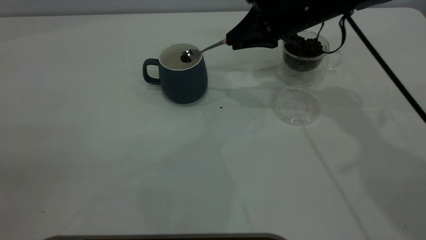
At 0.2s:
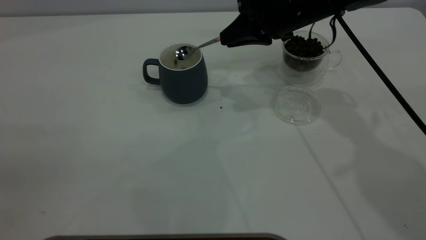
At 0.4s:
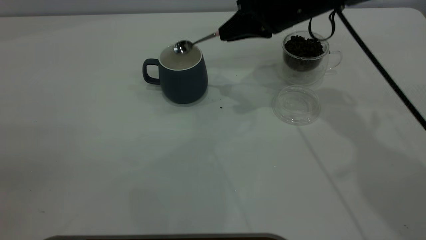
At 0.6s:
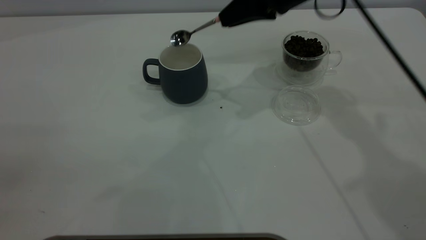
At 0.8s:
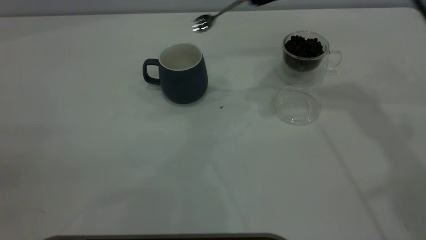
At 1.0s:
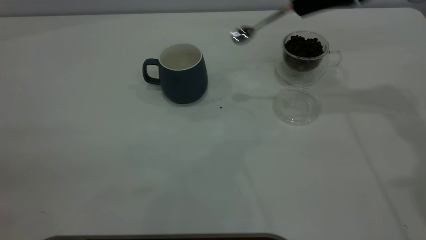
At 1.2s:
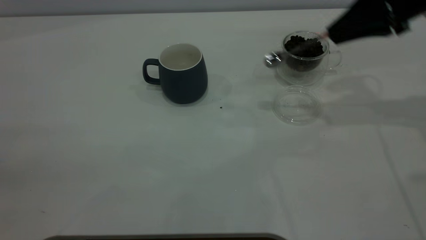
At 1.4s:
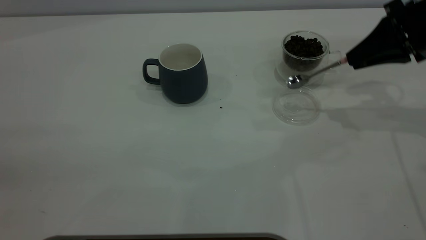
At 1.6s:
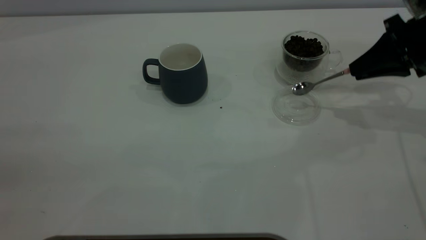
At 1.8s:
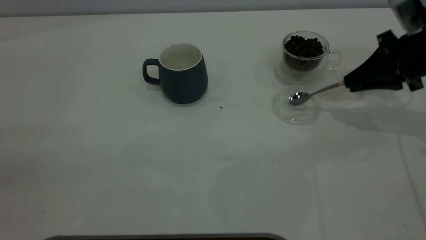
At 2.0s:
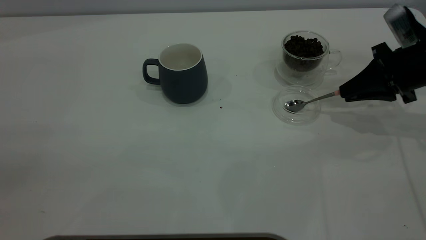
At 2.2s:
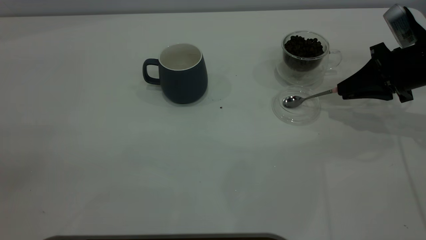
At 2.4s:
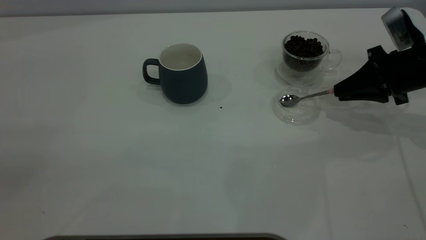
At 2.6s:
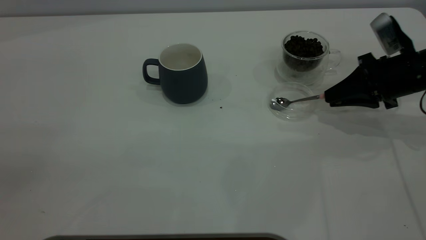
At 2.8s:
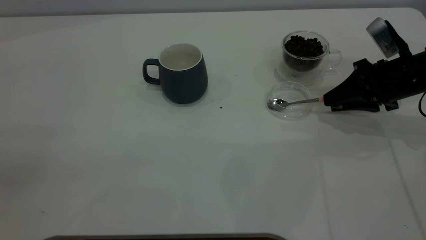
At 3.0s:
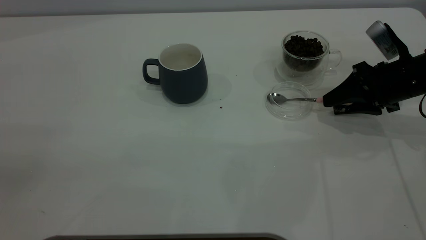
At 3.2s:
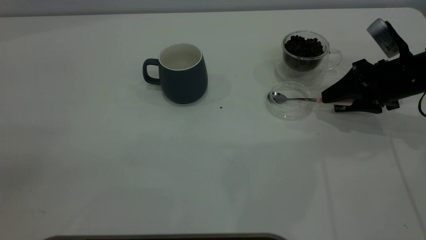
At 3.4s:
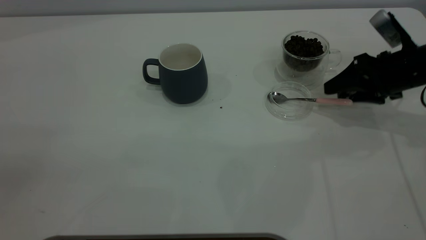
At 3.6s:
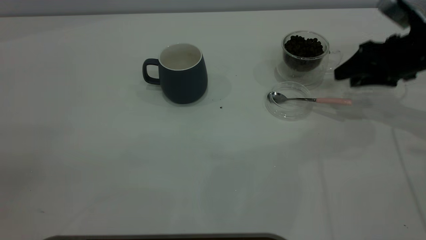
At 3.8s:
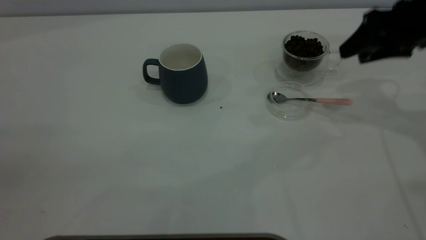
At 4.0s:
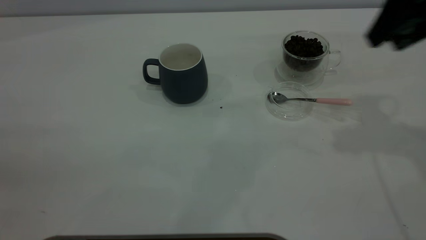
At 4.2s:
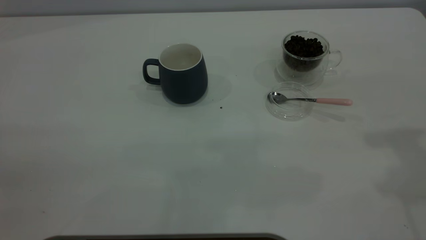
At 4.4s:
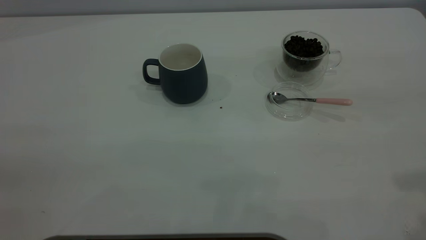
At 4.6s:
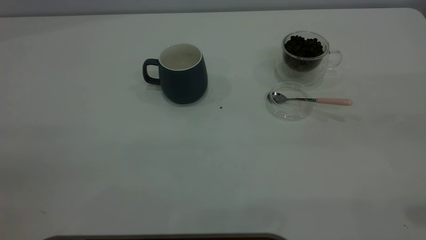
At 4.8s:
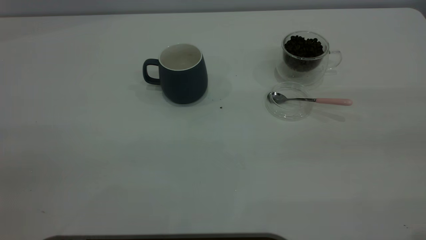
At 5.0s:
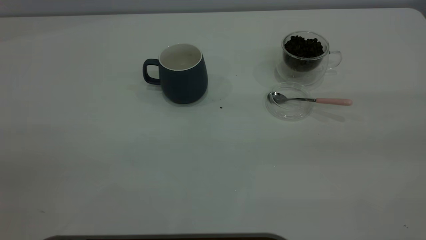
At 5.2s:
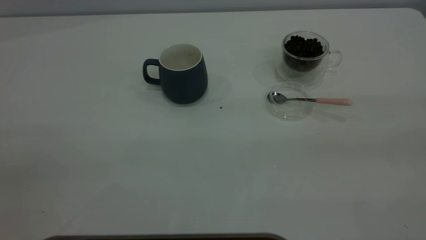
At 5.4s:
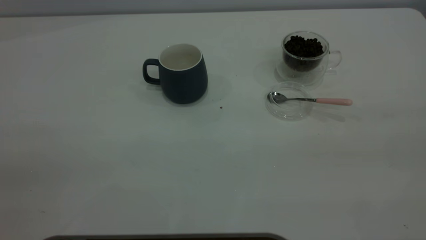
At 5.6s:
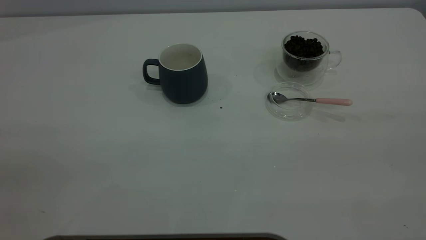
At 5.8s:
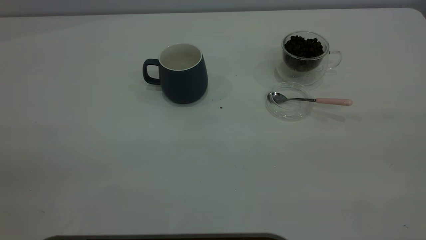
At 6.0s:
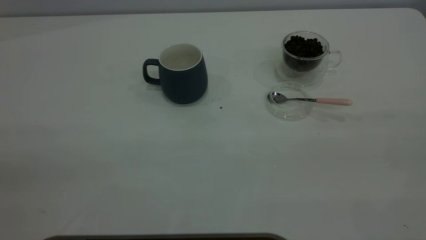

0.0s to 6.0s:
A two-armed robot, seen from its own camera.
Task of the whole recording: the left gripper place the grey cup in the center of the table, the right gripper take the pink spoon from the cup lid and scoop out the coffee beans from the coffee cup and put them into the grey cup, the right gripper put the spoon back into the cup lid.
Step, 0.6s to 3.6s: Place the spoon back in its original place.
0.0s to 1.6s: The right gripper heads to the right, covering approximately 20 cm.
1.6s to 3.0s: The right gripper travels downward by about 5 cm, and opens its fingers.
3.0s to 4.4s: The right gripper goes some 35 cm upward and backward.
